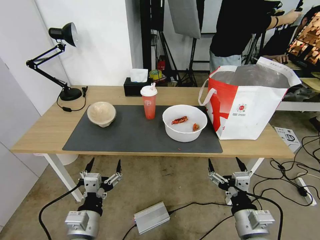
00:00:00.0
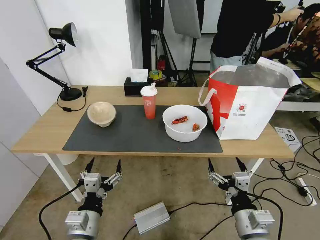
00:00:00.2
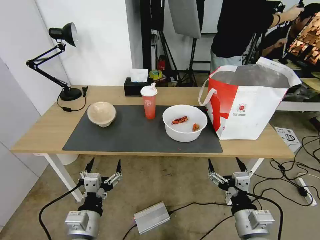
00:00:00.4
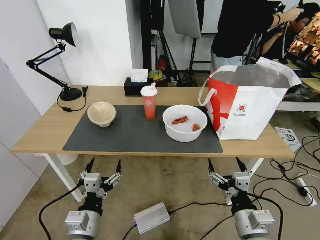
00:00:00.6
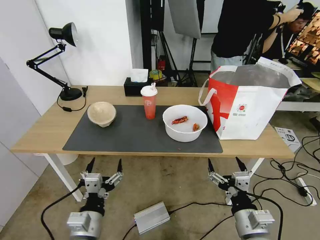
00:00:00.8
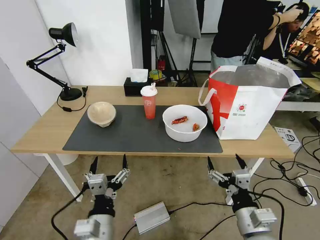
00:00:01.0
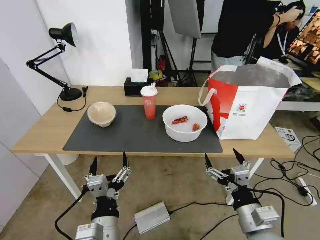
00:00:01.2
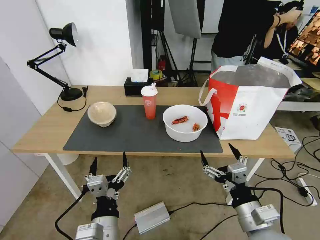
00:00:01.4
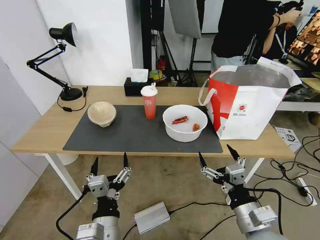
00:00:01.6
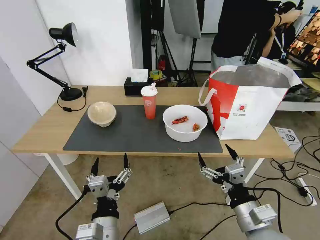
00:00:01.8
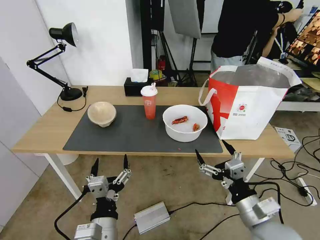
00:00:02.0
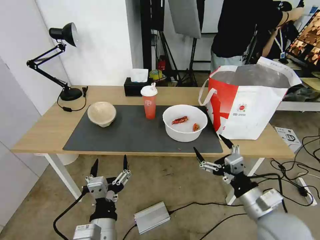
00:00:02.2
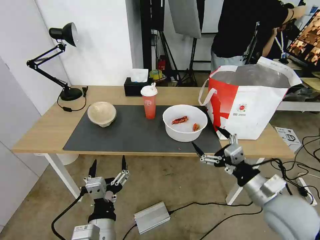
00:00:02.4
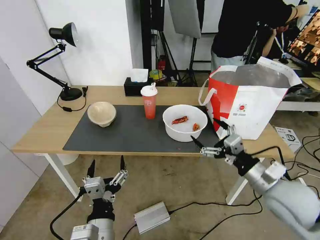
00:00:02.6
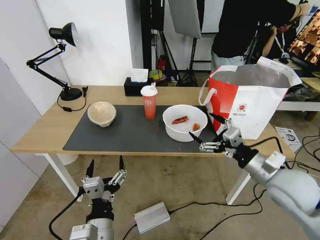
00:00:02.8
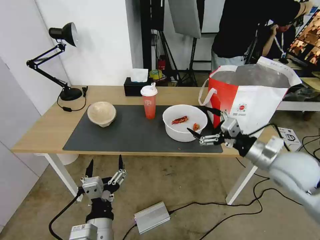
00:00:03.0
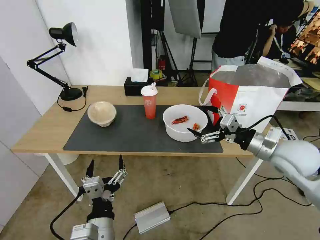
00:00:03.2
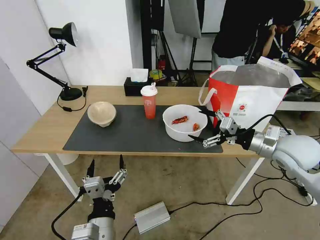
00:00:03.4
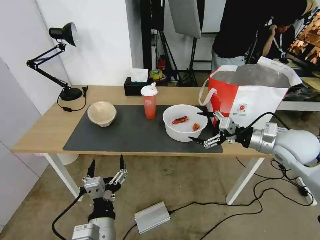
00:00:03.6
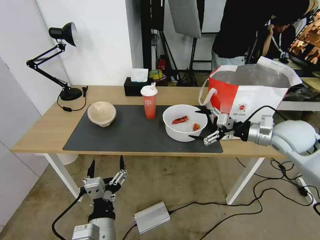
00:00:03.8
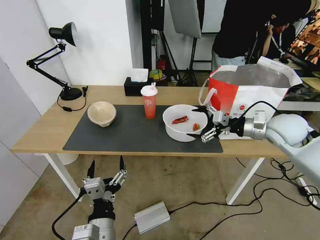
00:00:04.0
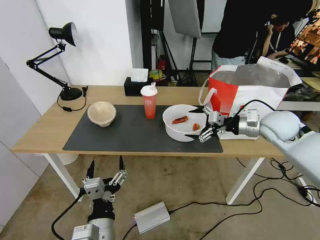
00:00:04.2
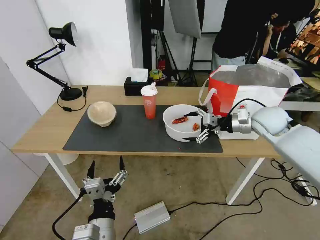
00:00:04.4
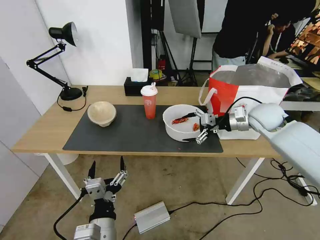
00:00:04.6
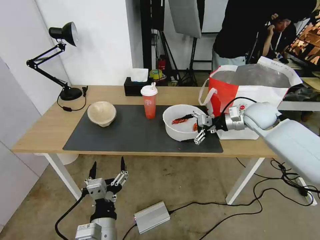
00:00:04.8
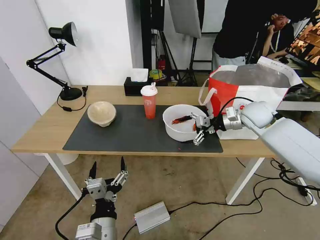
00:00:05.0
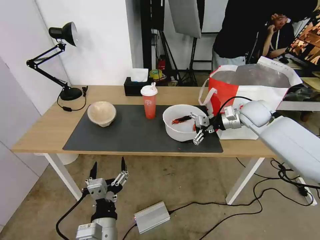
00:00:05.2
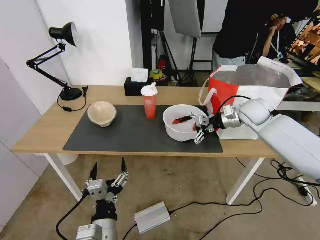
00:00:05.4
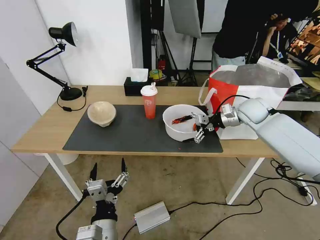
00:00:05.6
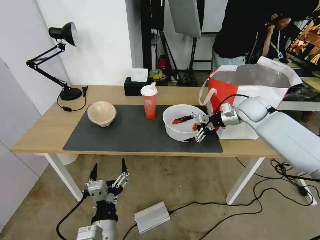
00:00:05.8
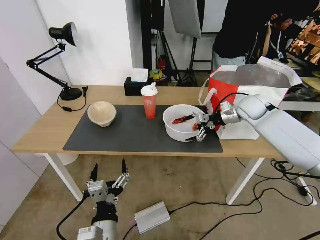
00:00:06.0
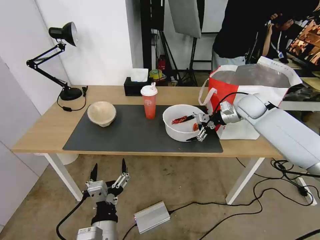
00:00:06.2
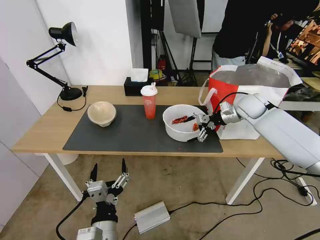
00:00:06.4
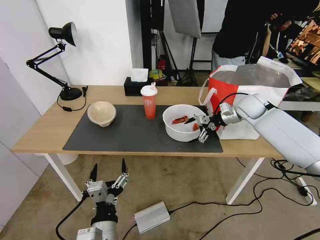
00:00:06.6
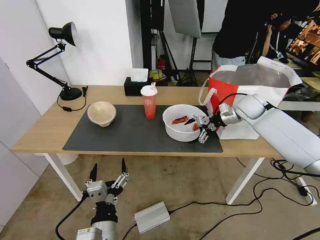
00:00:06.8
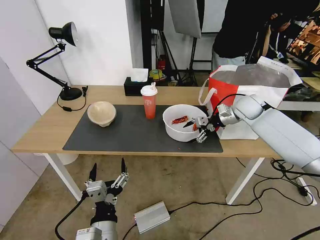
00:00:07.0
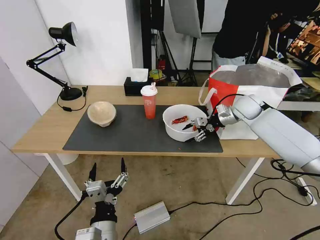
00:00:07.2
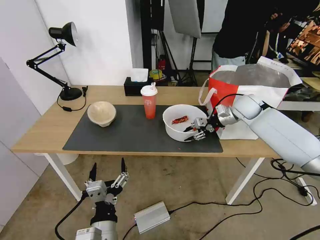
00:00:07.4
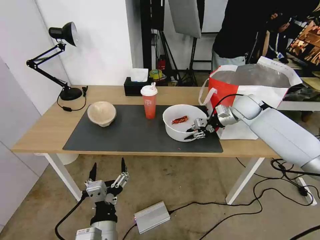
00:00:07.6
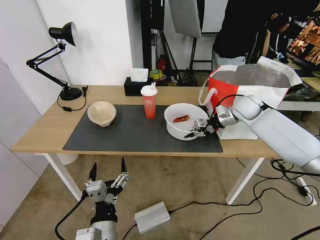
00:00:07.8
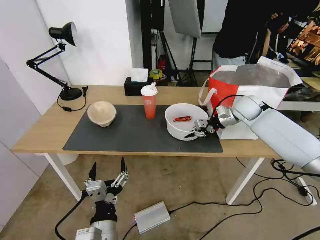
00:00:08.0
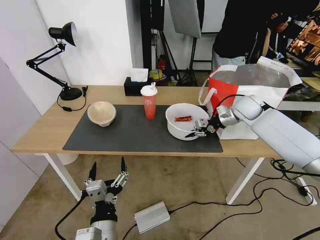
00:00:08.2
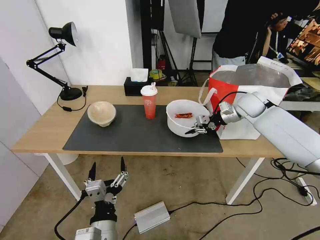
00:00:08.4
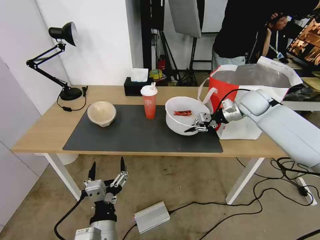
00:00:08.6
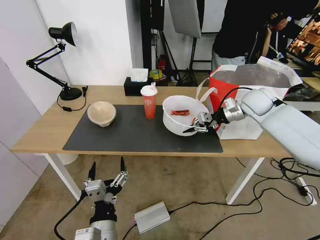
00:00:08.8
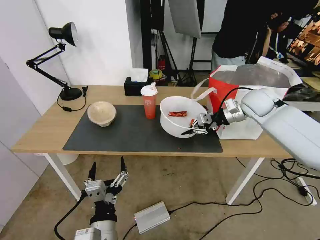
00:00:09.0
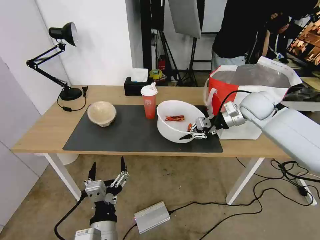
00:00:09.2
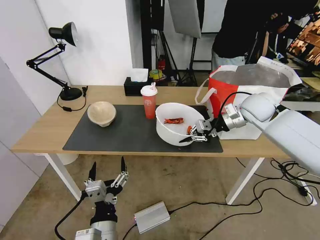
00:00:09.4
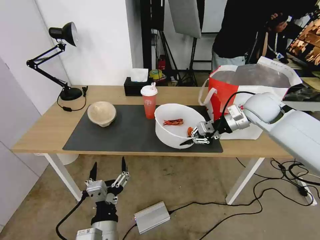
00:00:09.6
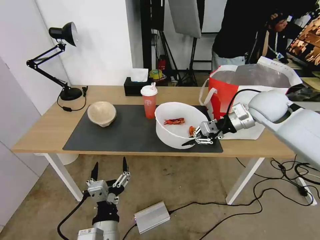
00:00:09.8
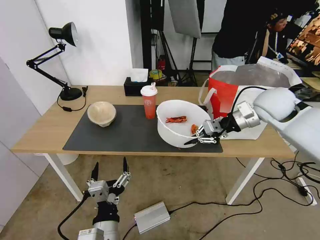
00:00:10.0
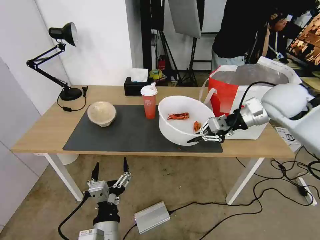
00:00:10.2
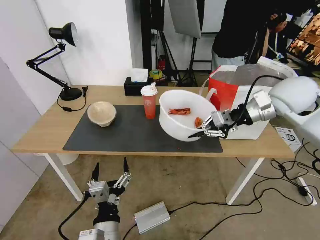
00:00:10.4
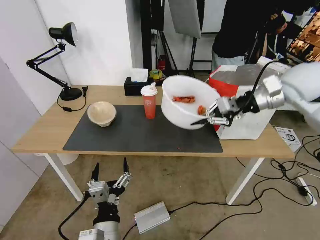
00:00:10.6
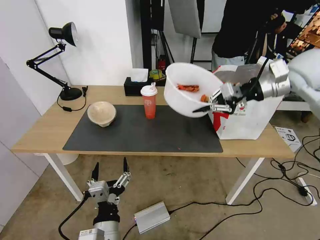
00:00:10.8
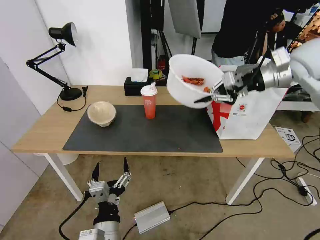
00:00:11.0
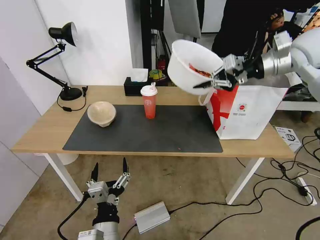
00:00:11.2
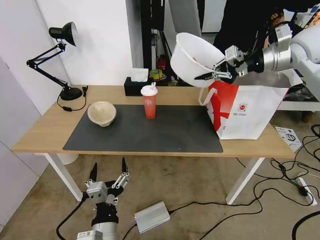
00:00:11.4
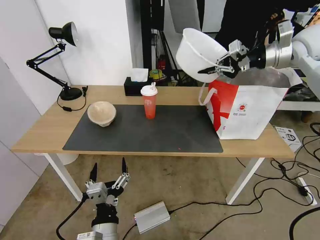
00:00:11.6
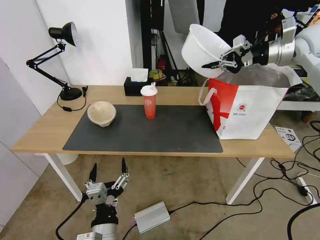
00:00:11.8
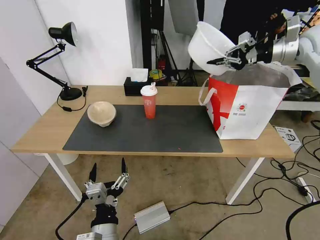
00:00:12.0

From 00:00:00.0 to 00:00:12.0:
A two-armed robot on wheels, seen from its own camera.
Task of the whole recording: Pick up the trash from the table and place it into the takeout bag.
From 00:00:01.6 to 00:00:03.0: The right gripper moves forward, upward and to the right, roughly 20 cm.
From 00:00:03.0 to 00:00:04.4: The right gripper heads forward, covering about 15 cm.
From 00:00:04.4 to 00:00:06.0: The right gripper goes about 10 cm forward.
From 00:00:06.0 to 00:00:07.6: The right gripper closes its fingers.
From 00:00:07.6 to 00:00:09.0: The right gripper ends up some 5 cm from where it was.
From 00:00:09.0 to 00:00:10.4: The right gripper heads upward and backward, covering some 10 cm.
From 00:00:10.4 to 00:00:12.0: The right gripper travels forward, to the right and upward by about 20 cm.

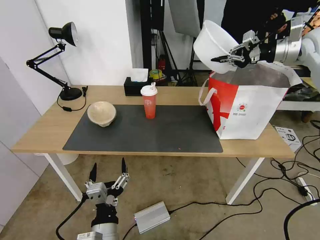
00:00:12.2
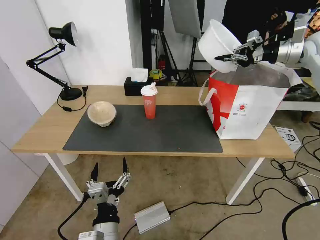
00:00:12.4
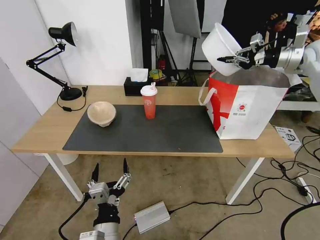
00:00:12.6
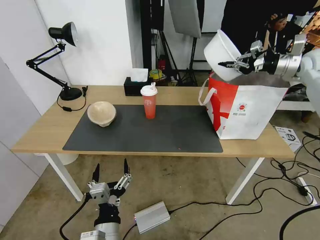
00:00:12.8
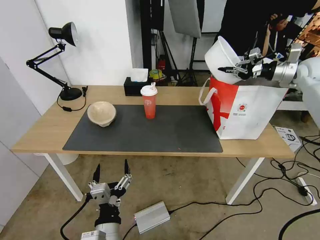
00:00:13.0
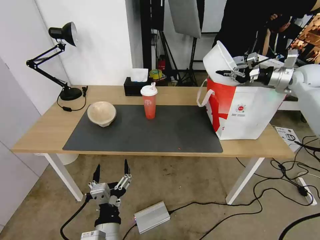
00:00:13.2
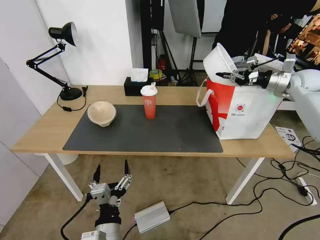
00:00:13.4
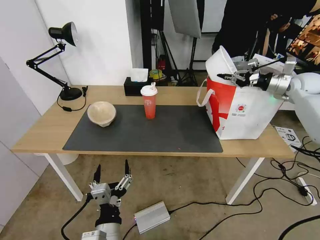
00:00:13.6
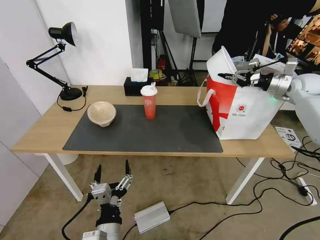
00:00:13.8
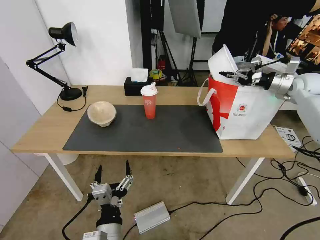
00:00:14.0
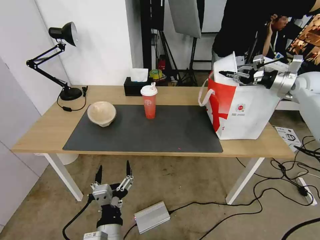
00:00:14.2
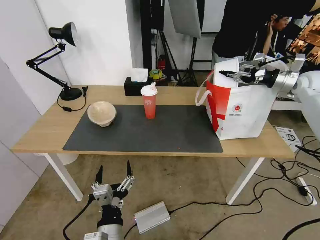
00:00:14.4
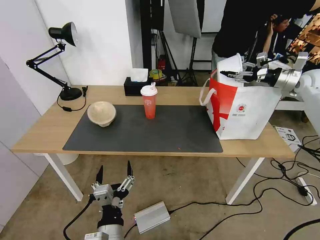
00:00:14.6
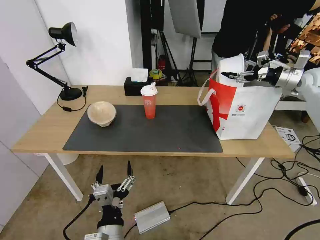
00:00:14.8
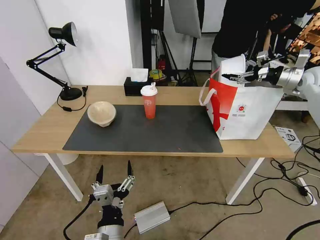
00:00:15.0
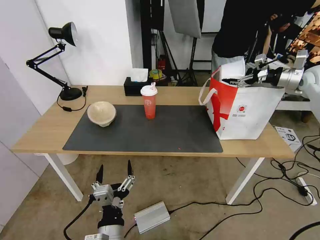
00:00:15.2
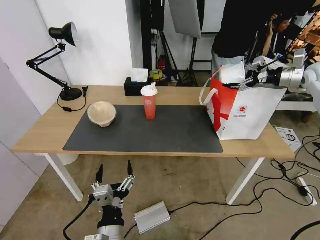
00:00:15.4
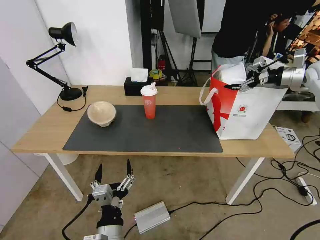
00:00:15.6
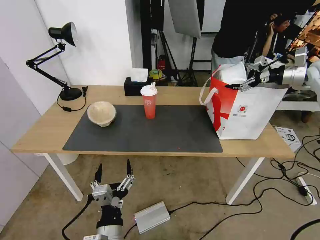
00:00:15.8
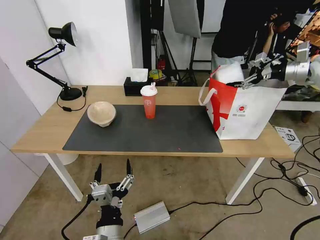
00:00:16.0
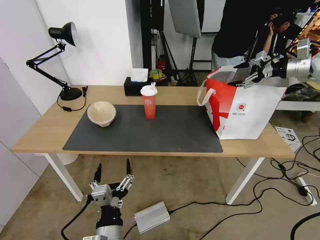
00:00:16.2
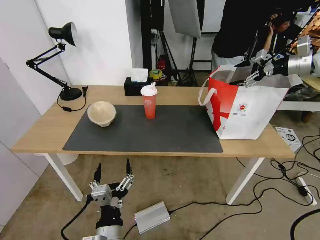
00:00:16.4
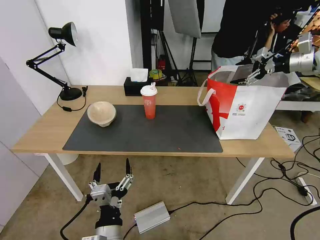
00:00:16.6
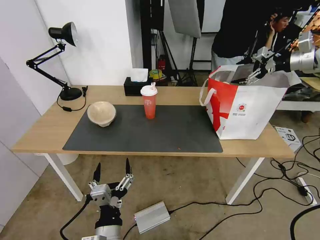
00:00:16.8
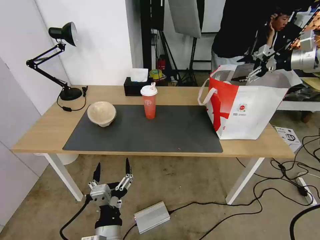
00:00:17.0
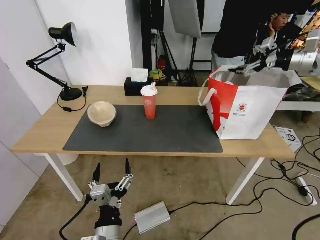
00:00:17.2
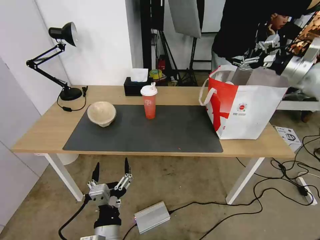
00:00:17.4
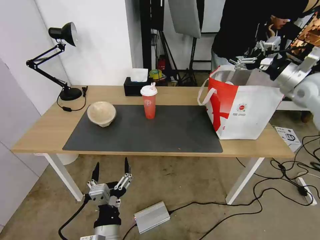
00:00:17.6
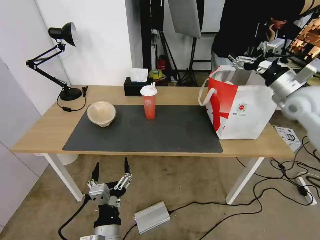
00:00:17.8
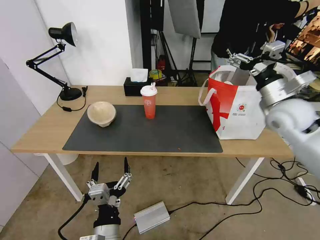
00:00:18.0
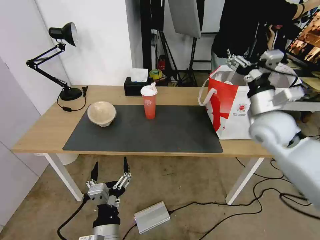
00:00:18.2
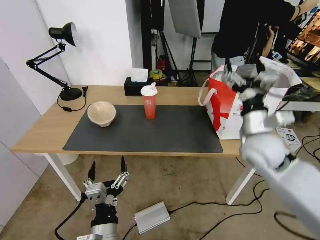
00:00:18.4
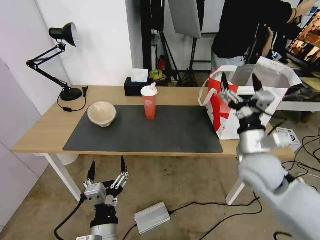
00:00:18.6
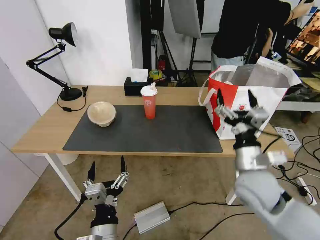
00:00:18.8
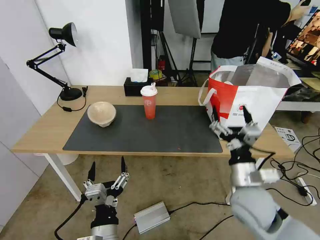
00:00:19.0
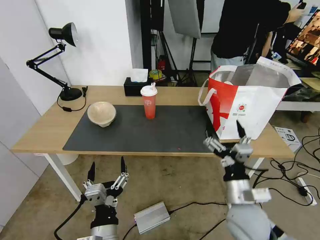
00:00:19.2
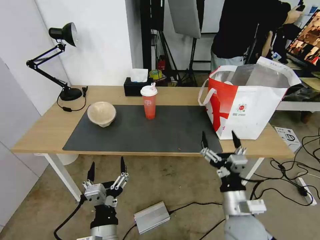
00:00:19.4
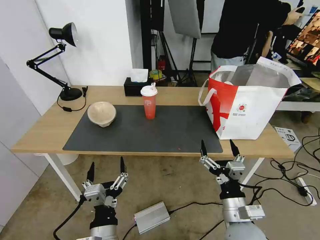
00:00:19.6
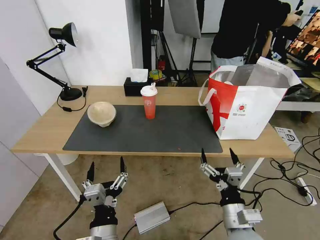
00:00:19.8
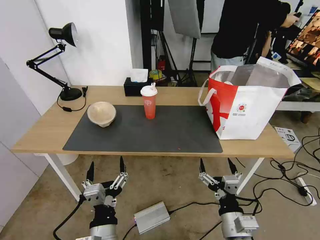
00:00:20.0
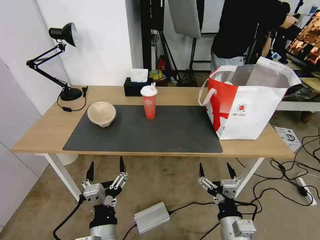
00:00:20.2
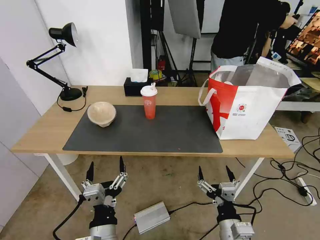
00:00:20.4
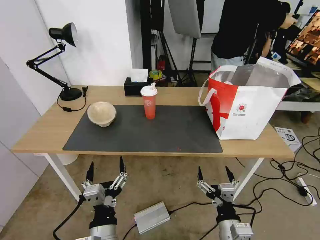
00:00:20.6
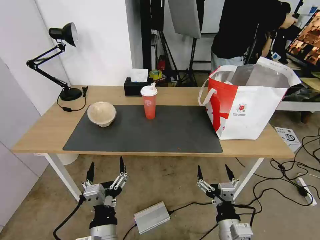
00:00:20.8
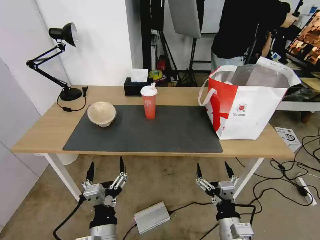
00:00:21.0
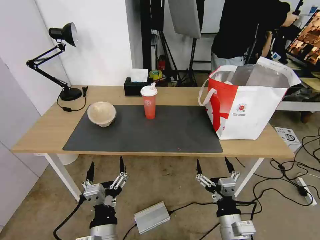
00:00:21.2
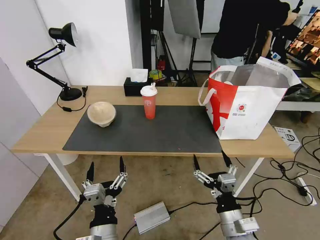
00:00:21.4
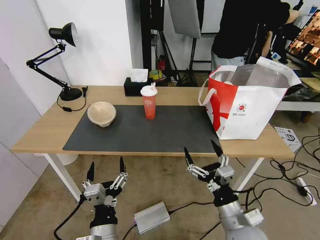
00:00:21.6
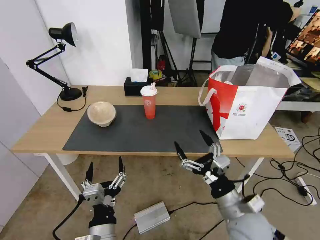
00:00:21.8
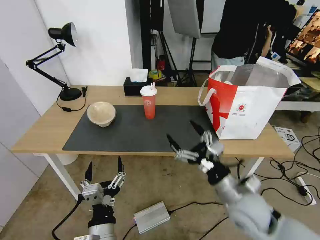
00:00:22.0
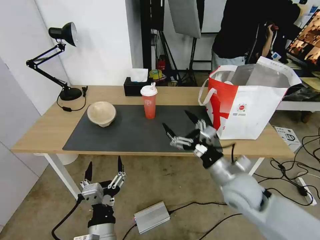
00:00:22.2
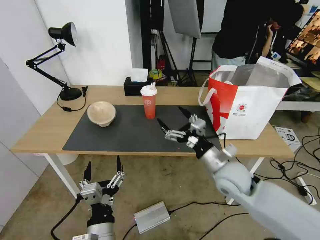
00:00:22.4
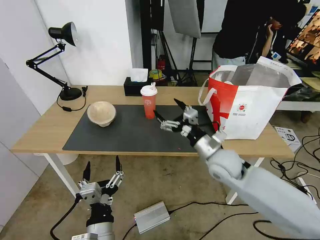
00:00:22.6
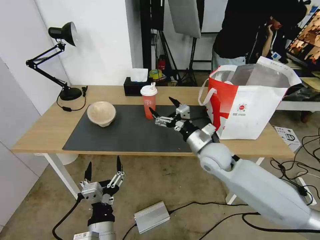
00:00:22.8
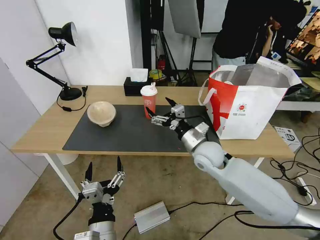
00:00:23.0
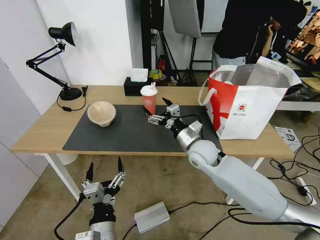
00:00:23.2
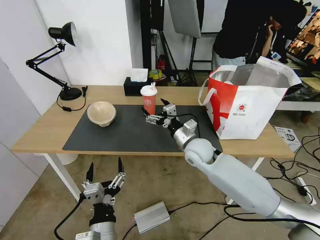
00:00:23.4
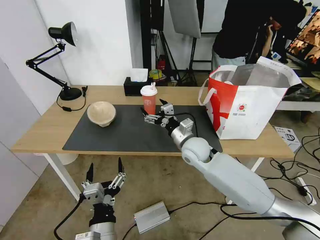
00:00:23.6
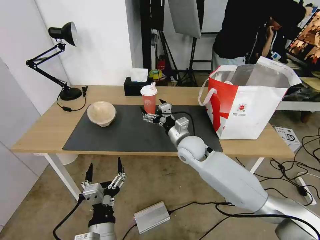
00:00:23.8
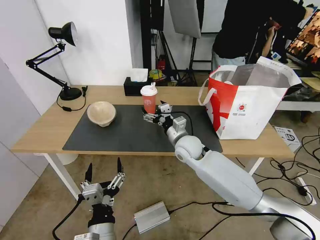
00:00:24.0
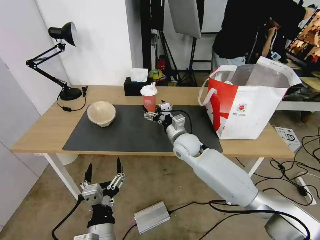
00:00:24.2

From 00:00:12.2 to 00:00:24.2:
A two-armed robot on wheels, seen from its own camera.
Task of the whole recording: Pick up the trash from the table and place it into the takeout bag.
From 00:00:12.2 to 00:00:13.8: The right gripper travels downward by some 15 cm.
From 00:00:13.8 to 00:00:15.2: The right gripper opens.
From 00:00:15.2 to 00:00:16.6: The right gripper shifts about 10 cm upward.
From 00:00:16.6 to 00:00:18.2: The right gripper shifts some 30 cm to the left, backward and downward.
From 00:00:18.2 to 00:00:19.8: The right gripper shifts about 30 cm backward and downward.
From 00:00:19.8 to 00:00:21.2: The grippers move only a little.
From 00:00:21.2 to 00:00:22.6: The right gripper moves forward and upward, roughly 25 cm.
From 00:00:22.6 to 00:00:24.2: The right gripper shifts roughly 15 cm to the left and forward.
